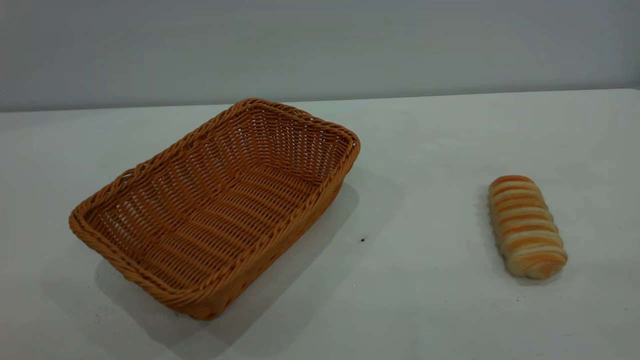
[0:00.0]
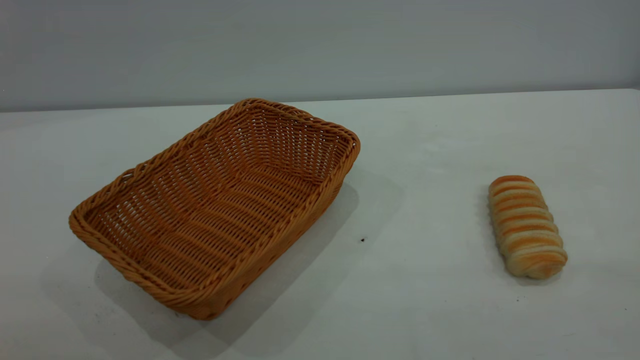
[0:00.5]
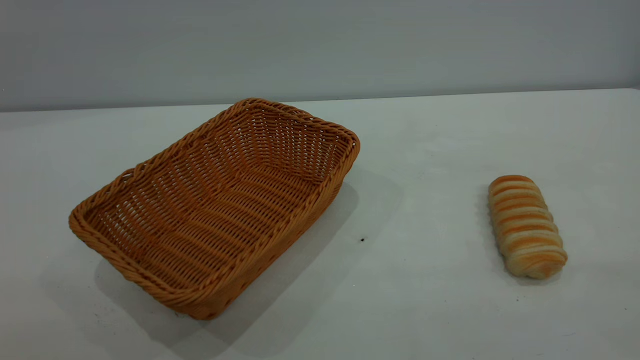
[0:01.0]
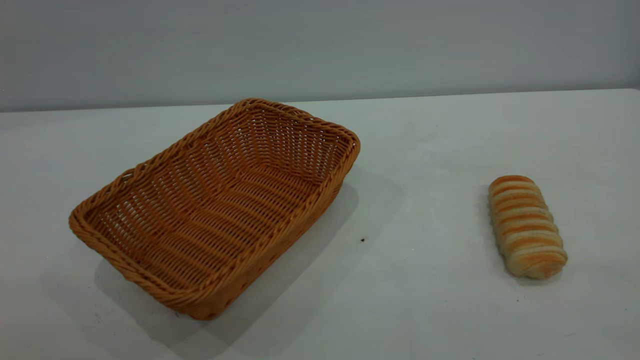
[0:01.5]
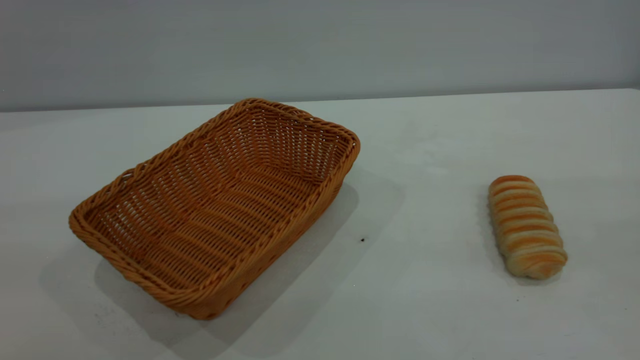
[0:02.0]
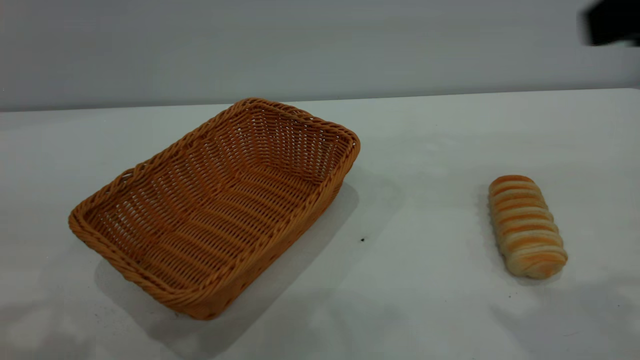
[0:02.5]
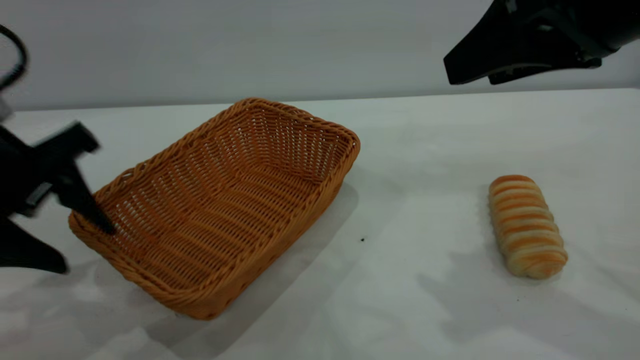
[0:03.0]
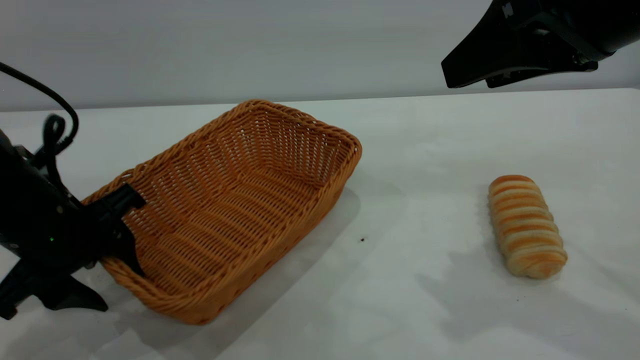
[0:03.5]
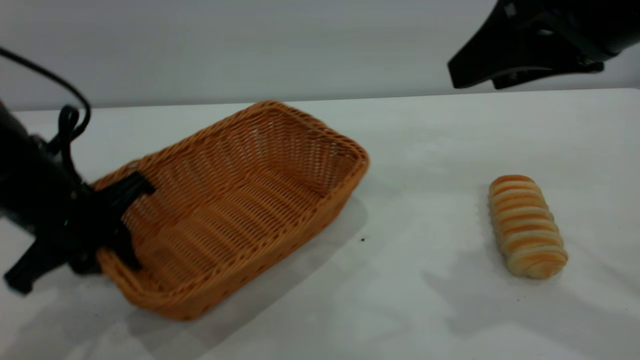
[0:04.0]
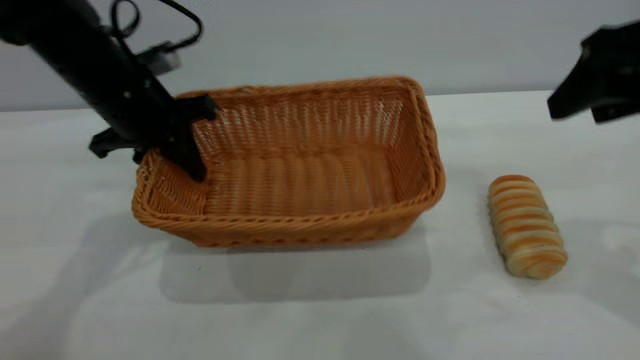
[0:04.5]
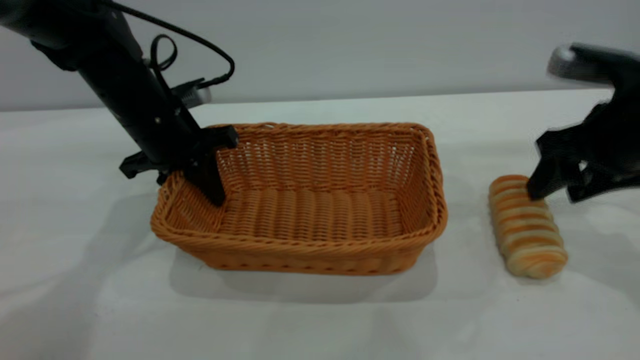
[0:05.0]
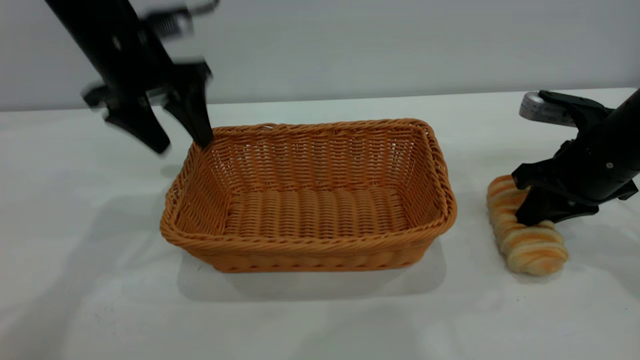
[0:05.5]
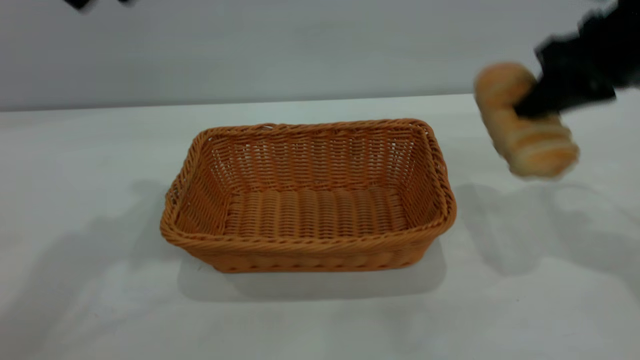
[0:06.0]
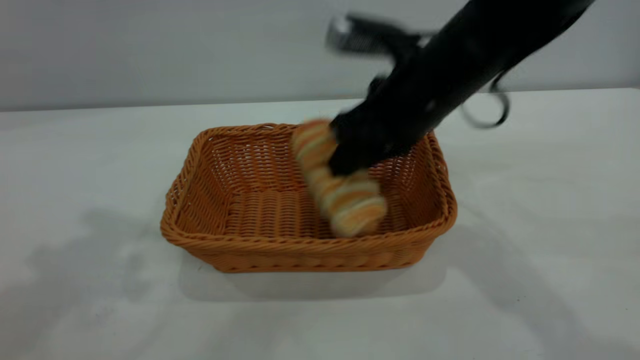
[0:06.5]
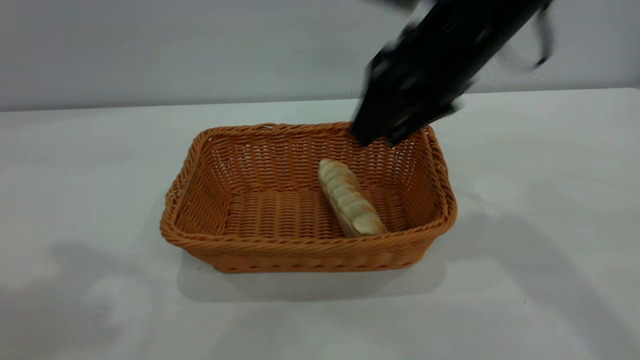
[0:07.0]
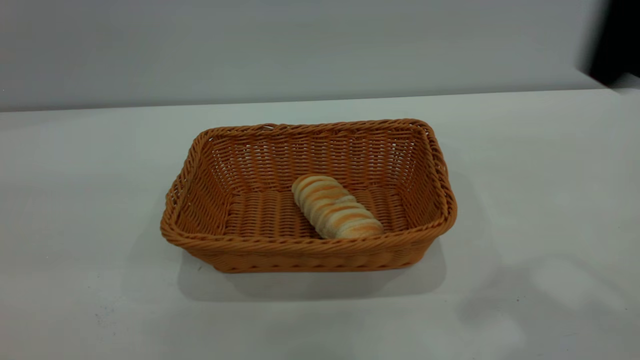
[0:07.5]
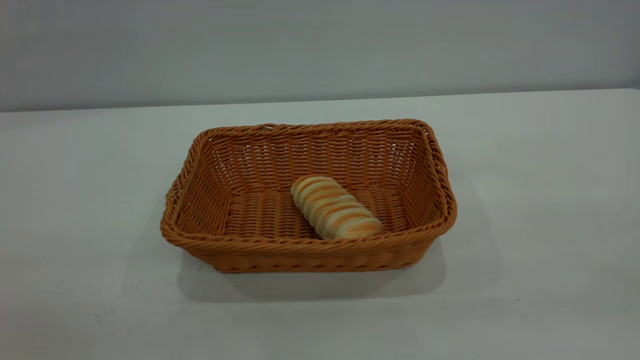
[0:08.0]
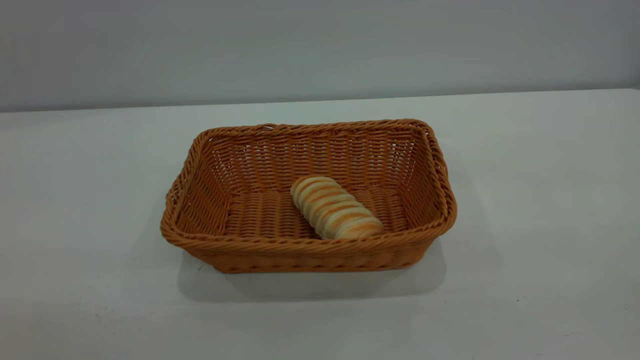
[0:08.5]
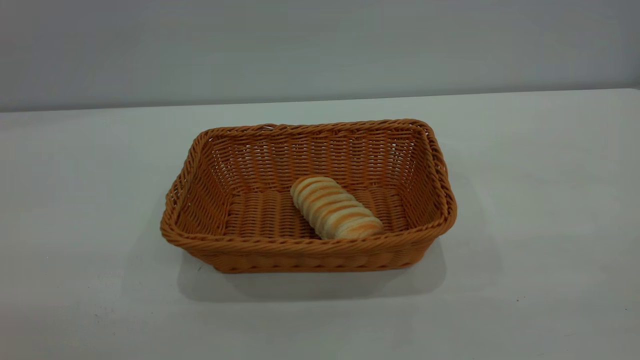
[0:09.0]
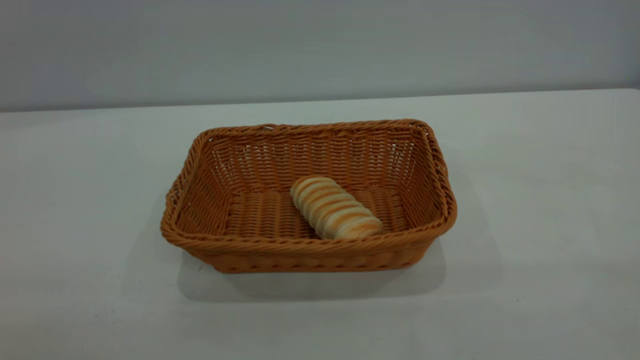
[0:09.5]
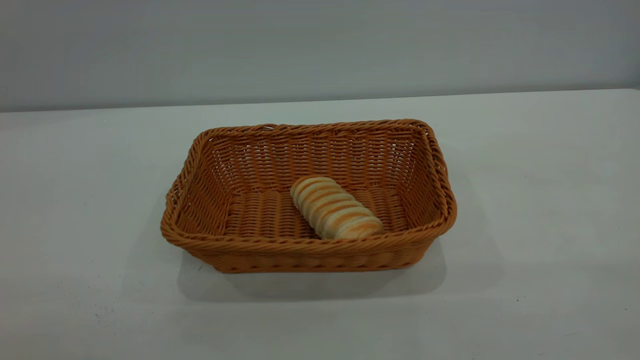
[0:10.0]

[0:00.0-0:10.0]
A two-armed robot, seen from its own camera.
Task of the whole recording: One hand grasps the yellow basket and places it in the middle of the table, while the other hand picks up the long bread and puts it into the yellow basket.
Step, 0:00.0 to 0:05.5: Move the basket to the center of view.
Step, 0:06.0 to 0:07.0: place the bread into the basket.
0:02.0 to 0:04.0: The right gripper moves forward, downward and to the left, roughly 20 cm; the left gripper is displaced downward and forward by approximately 35 cm, and closes up.
0:04.0 to 0:06.0: The left gripper shifts about 25 cm upward, and opens up. Meanwhile the right gripper goes approximately 10 cm forward, goes downward and returns, roughly 20 cm each way, and closes up.
0:06.0 to 0:08.0: Both grippers travel together backward, approximately 30 cm. The right gripper opens.

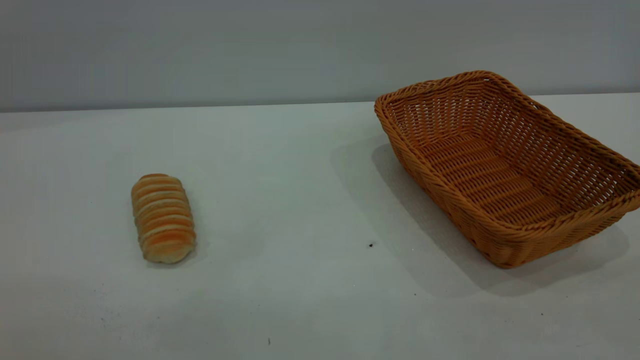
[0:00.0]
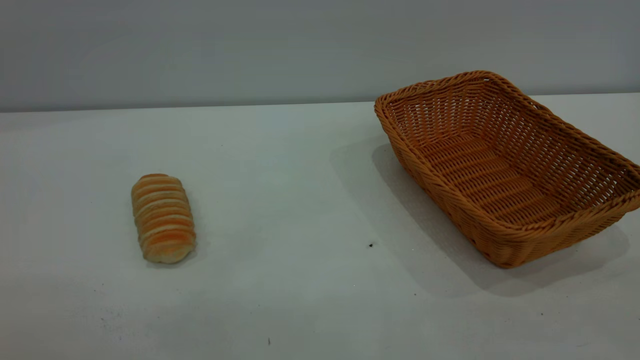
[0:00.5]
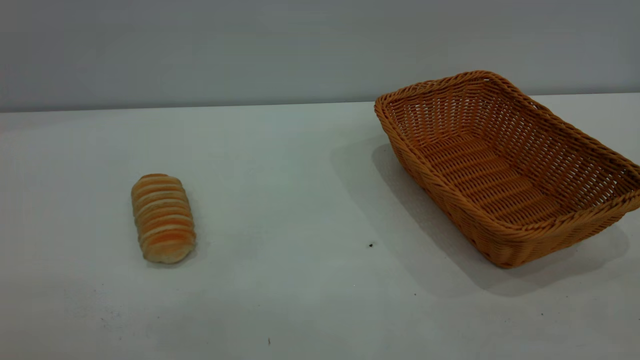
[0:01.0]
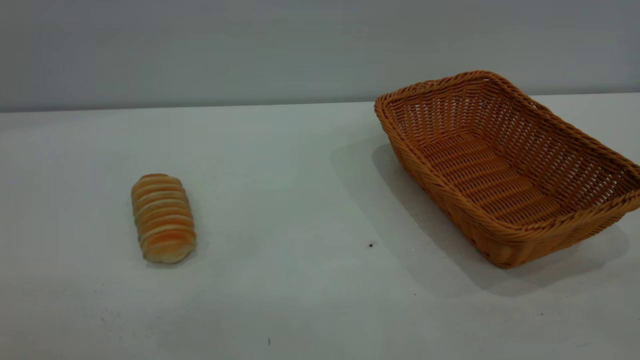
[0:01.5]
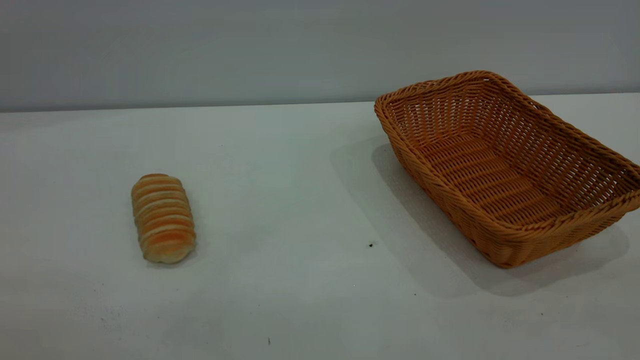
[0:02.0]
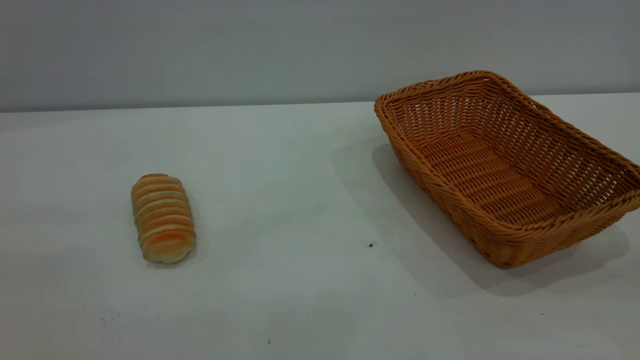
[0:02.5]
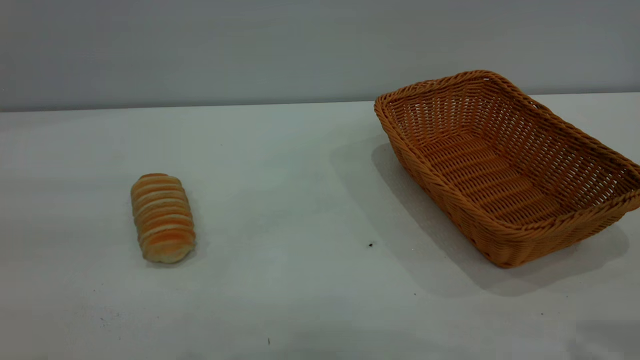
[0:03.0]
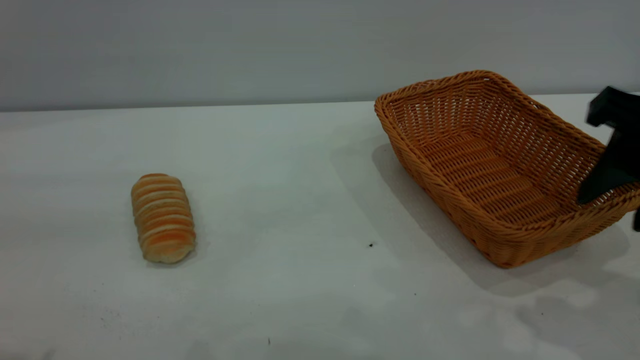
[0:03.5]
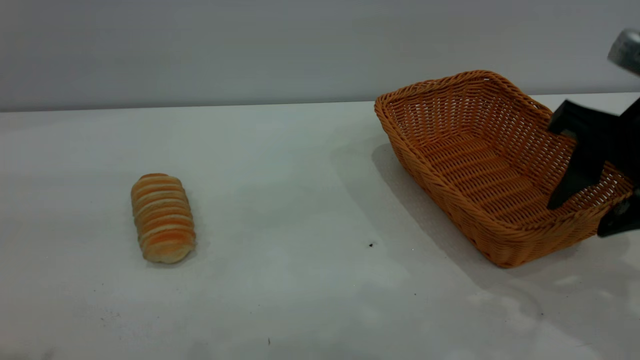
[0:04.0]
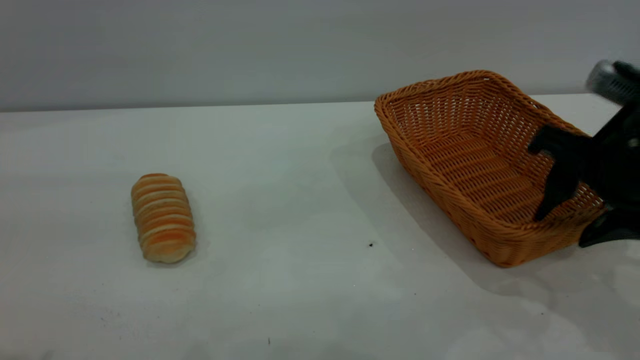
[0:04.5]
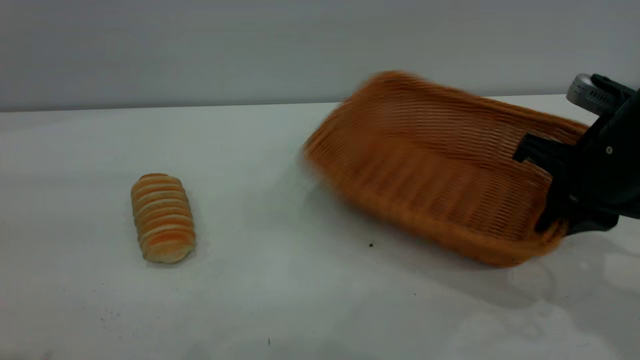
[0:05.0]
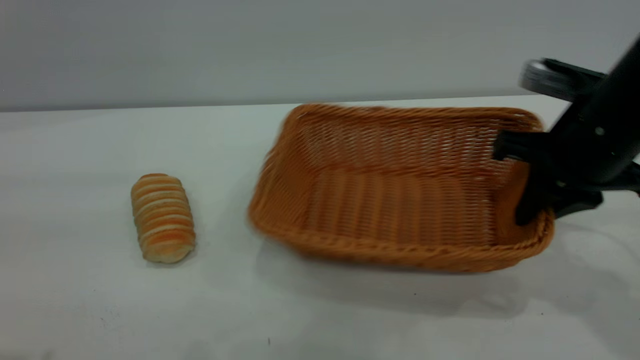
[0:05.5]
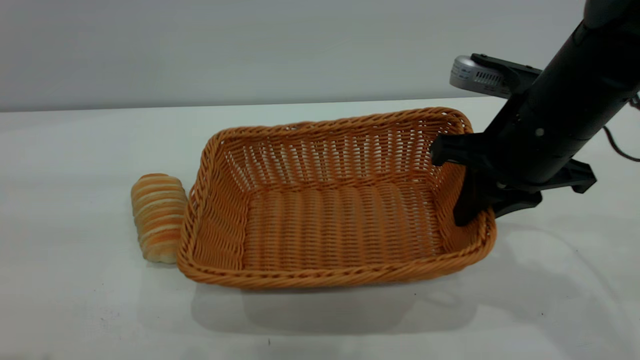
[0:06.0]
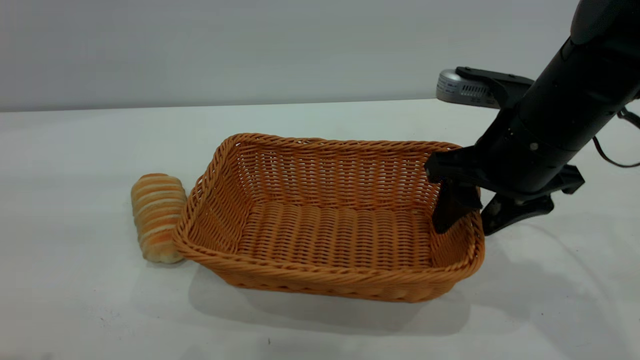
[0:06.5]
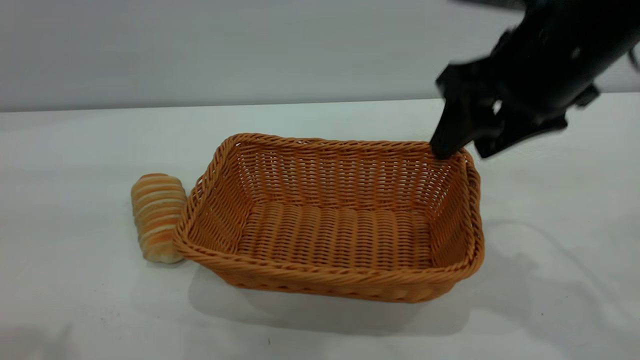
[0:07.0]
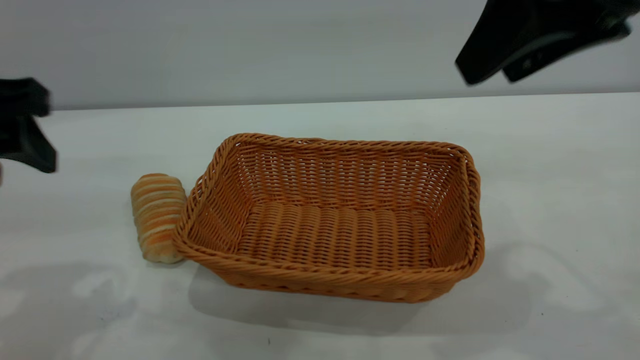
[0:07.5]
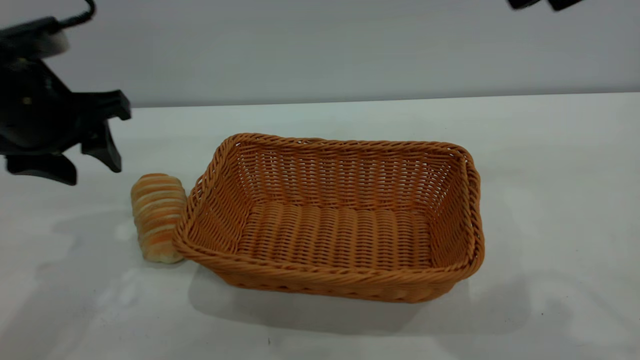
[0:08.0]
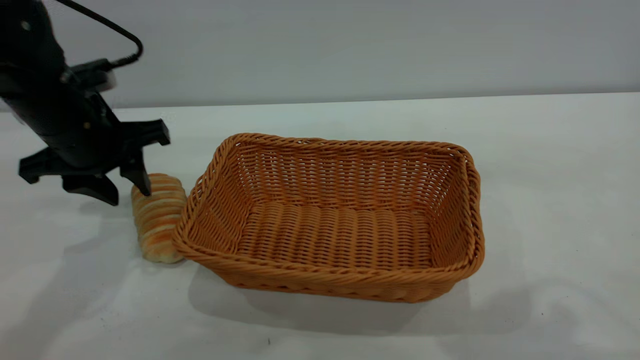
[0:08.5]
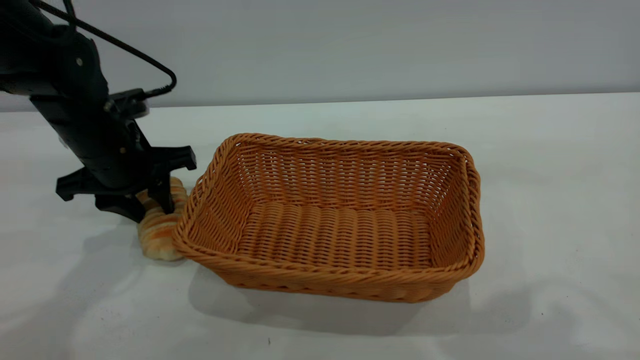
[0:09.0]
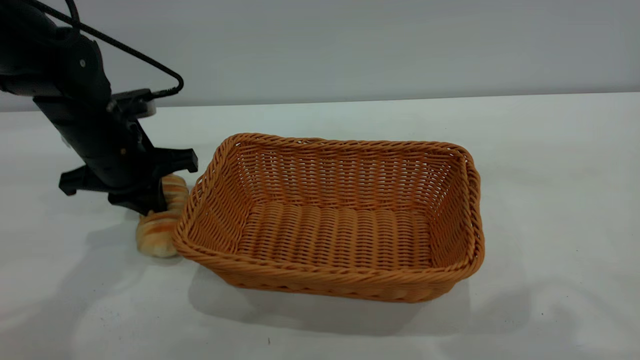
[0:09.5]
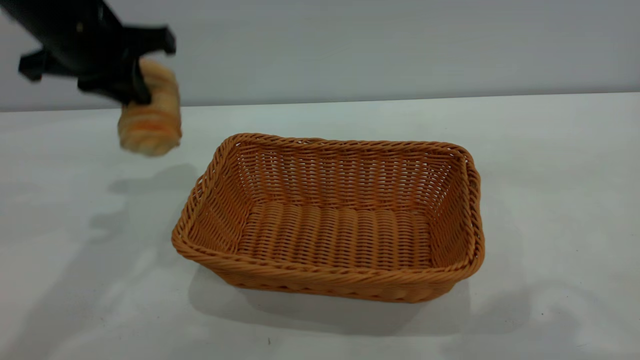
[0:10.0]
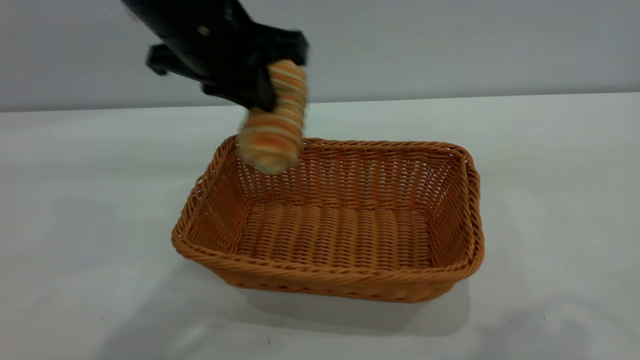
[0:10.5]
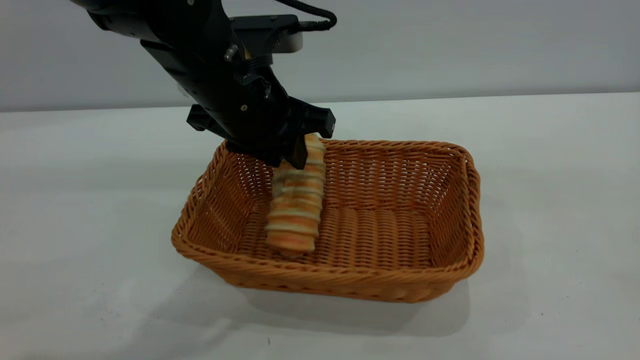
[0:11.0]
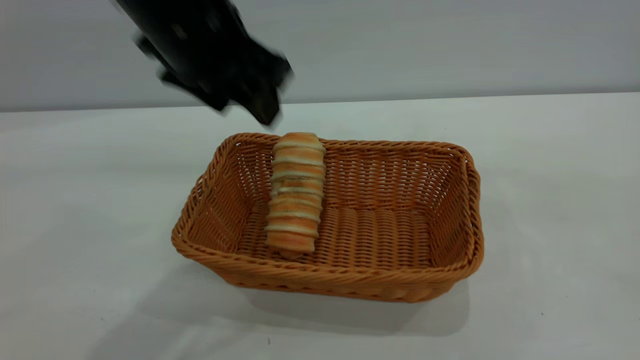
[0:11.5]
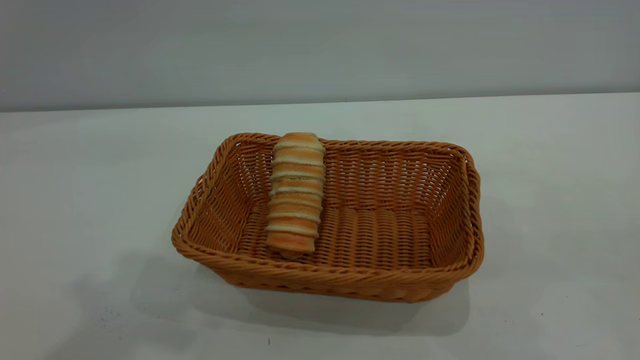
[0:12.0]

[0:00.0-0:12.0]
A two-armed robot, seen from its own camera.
Task of the whole recording: One hand grasps the yellow basket and places it in the middle of the table, while the other hand picks up the long bread and puts it into the yellow basket.
Step, 0:00.0 to 0:07.0: Move the basket to the center of view.
Step, 0:10.0 to 0:11.0: place the bread into the basket.
0:02.0 to 0:04.0: The right gripper goes roughly 30 cm forward and downward.
0:04.0 to 0:06.0: The right gripper heads to the left, covering about 5 cm, and closes up.
0:06.0 to 0:08.0: The left gripper shifts some 25 cm forward and downward; the right gripper heads upward and backward, covering about 25 cm, and opens up.
0:08.0 to 0:10.0: The left gripper shifts about 5 cm upward and forward, and closes.
0:10.0 to 0:12.0: The right gripper is displaced backward and to the right by about 15 cm; the left gripper moves upward and backward, roughly 25 cm, and opens up.
